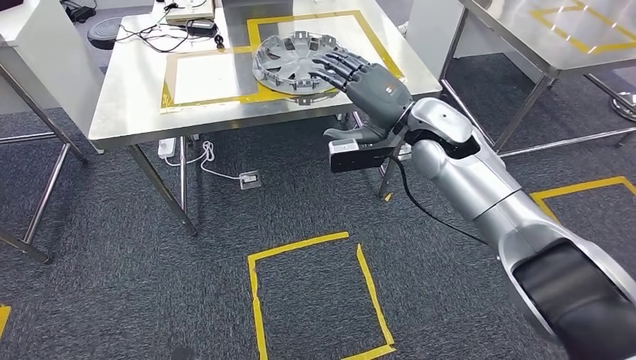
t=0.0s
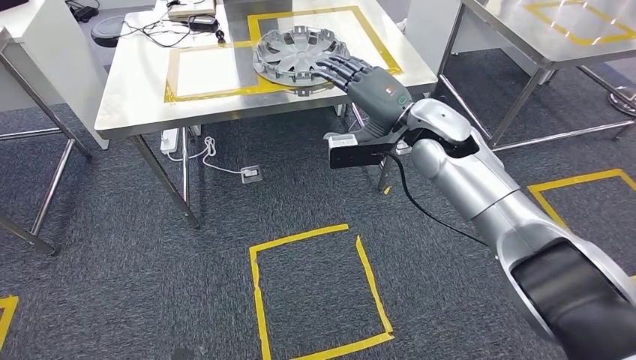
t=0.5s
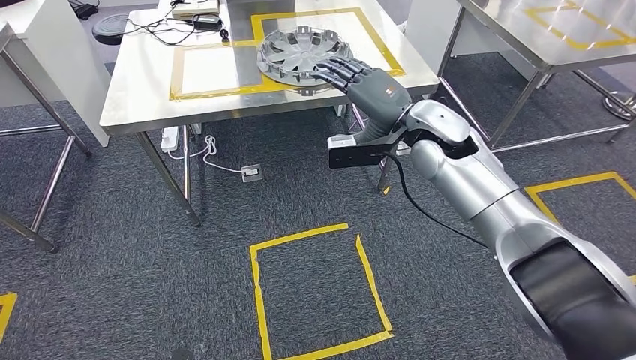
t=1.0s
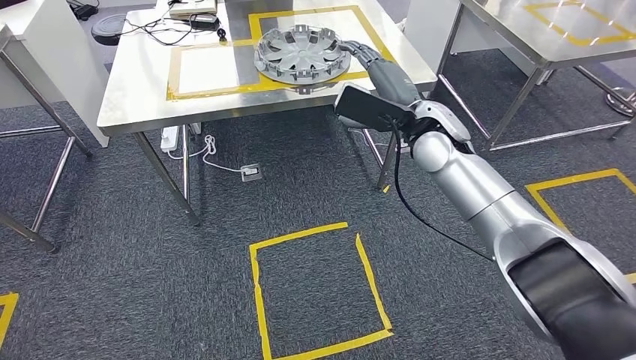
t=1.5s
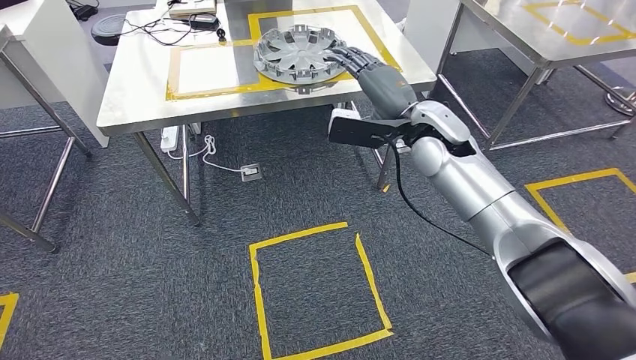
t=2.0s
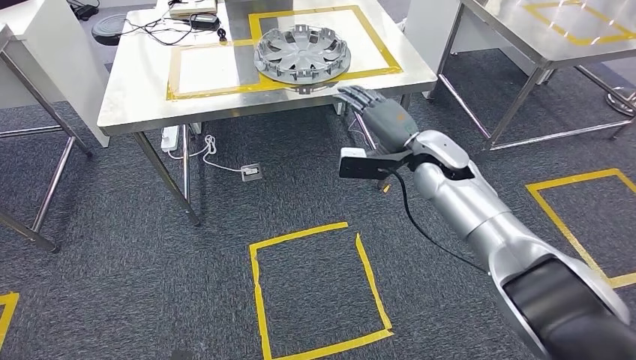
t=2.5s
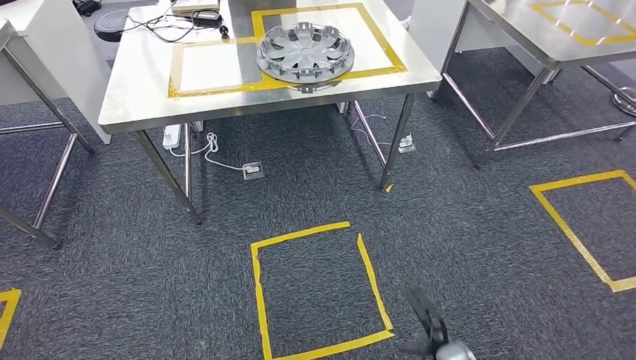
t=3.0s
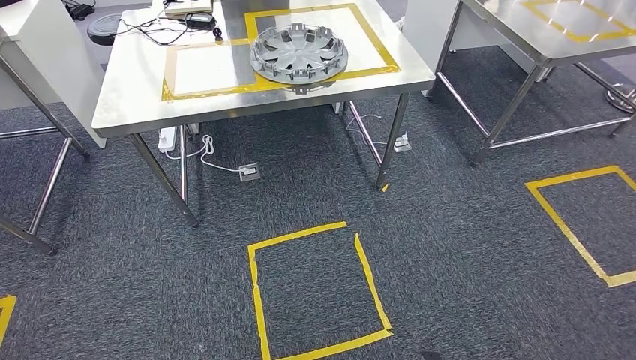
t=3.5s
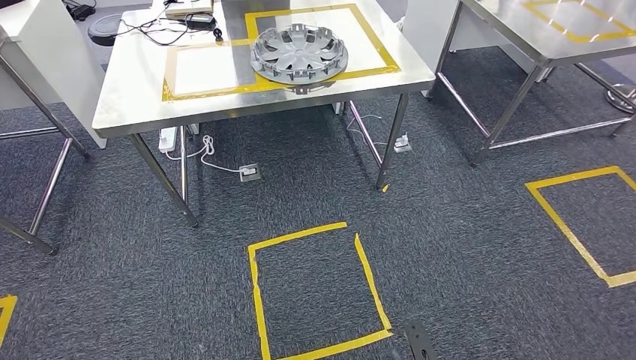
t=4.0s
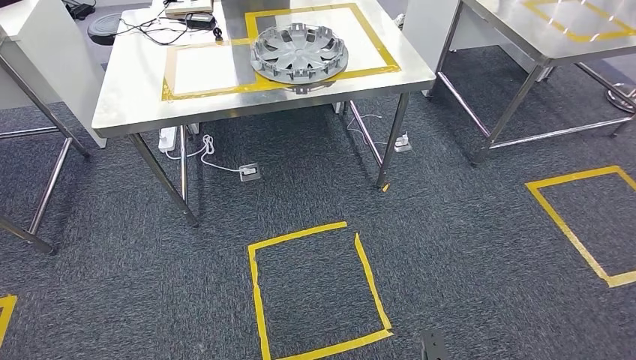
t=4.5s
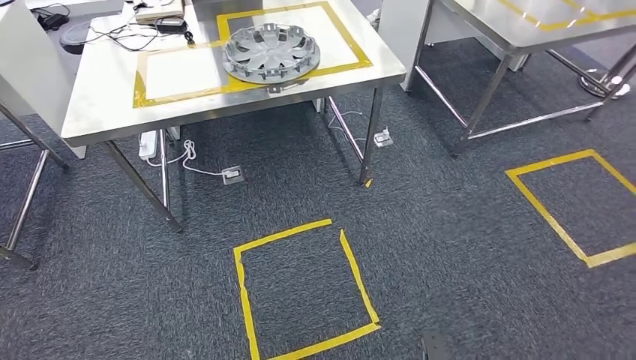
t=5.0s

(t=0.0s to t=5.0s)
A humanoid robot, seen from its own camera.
Step, t=0.0s - t=5.0s: Return to the initial position at the workbench.
